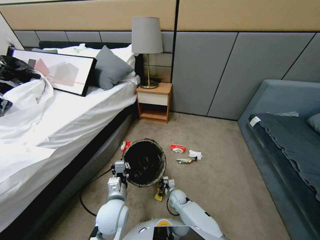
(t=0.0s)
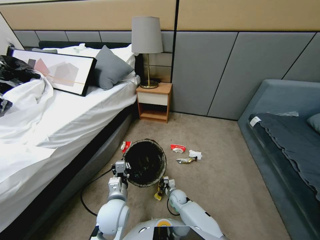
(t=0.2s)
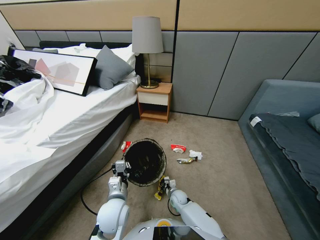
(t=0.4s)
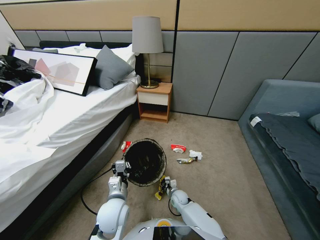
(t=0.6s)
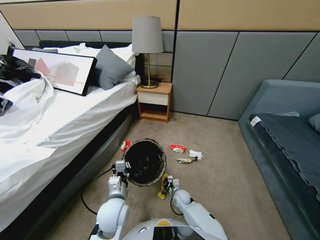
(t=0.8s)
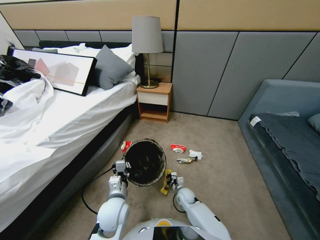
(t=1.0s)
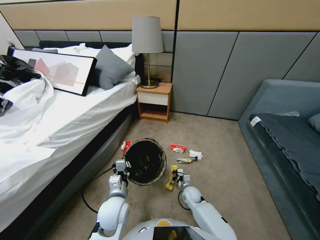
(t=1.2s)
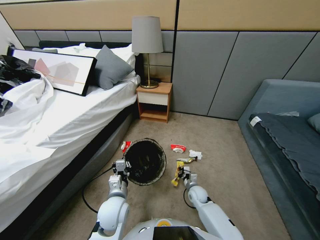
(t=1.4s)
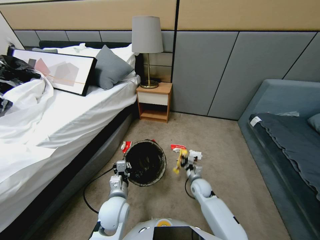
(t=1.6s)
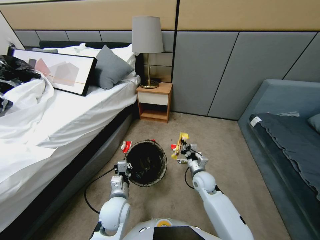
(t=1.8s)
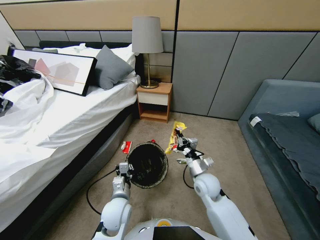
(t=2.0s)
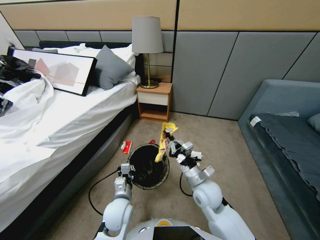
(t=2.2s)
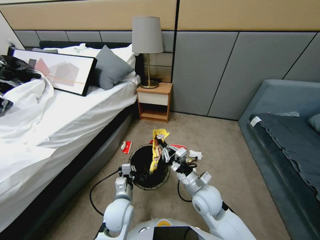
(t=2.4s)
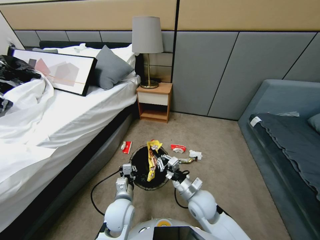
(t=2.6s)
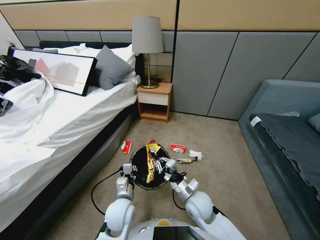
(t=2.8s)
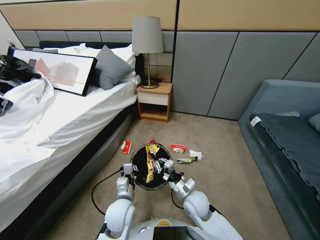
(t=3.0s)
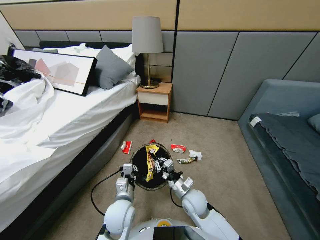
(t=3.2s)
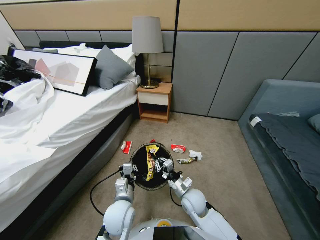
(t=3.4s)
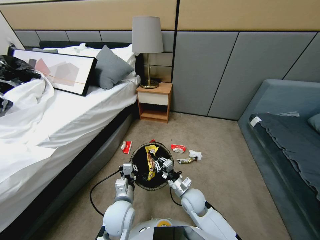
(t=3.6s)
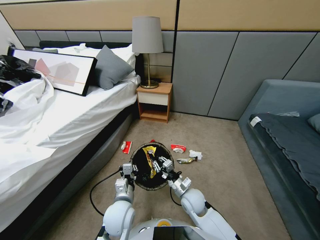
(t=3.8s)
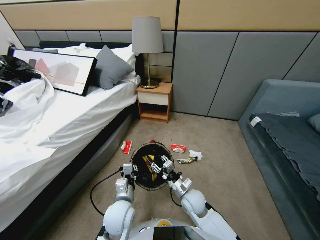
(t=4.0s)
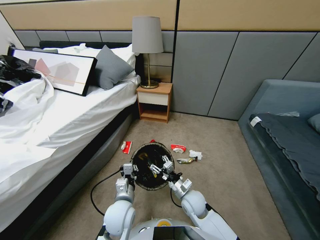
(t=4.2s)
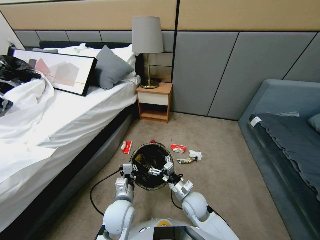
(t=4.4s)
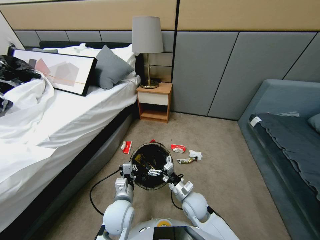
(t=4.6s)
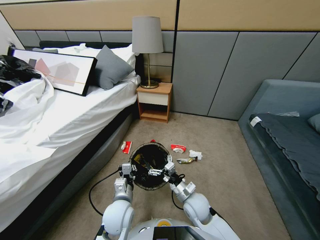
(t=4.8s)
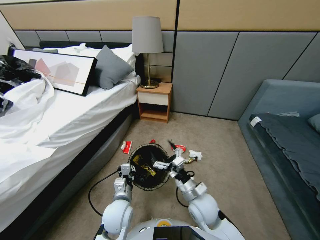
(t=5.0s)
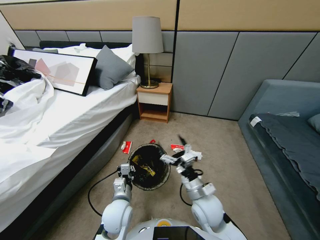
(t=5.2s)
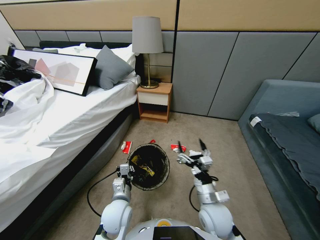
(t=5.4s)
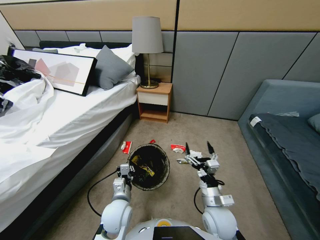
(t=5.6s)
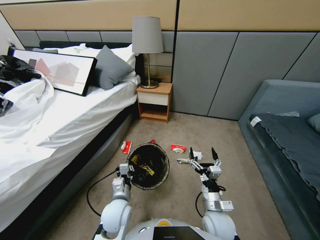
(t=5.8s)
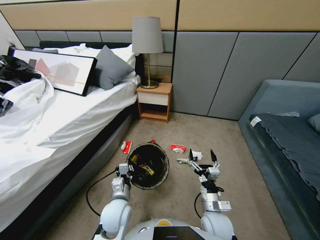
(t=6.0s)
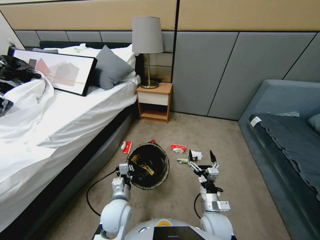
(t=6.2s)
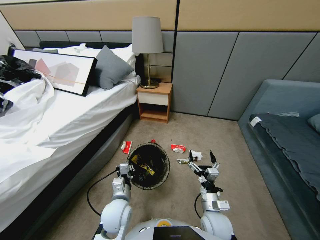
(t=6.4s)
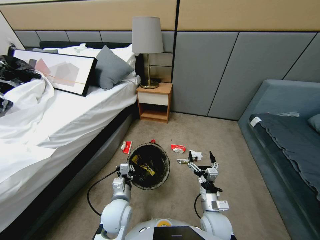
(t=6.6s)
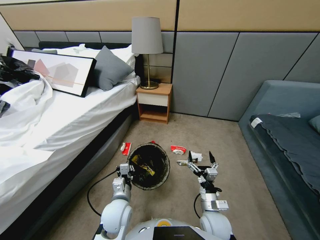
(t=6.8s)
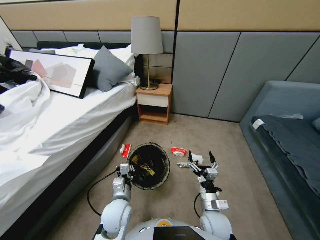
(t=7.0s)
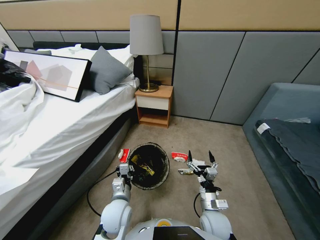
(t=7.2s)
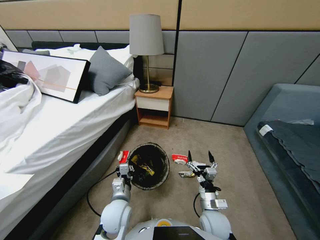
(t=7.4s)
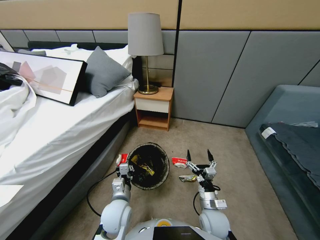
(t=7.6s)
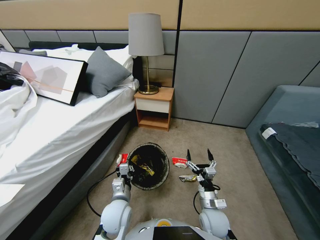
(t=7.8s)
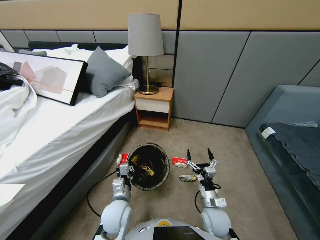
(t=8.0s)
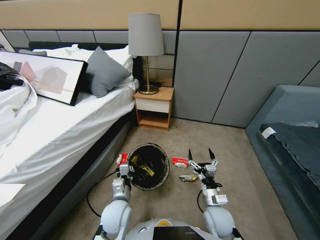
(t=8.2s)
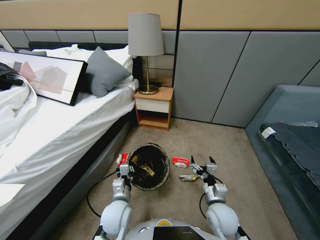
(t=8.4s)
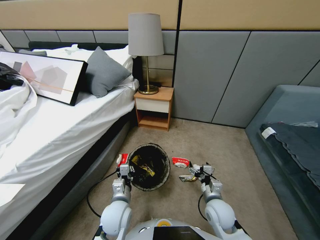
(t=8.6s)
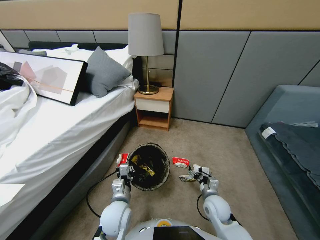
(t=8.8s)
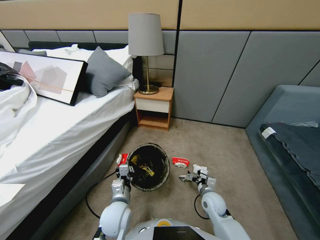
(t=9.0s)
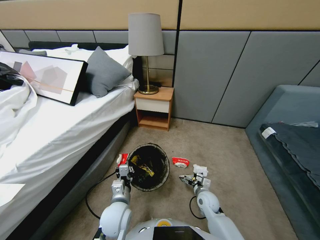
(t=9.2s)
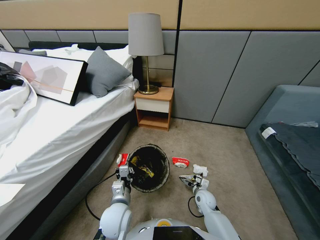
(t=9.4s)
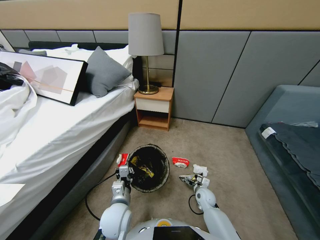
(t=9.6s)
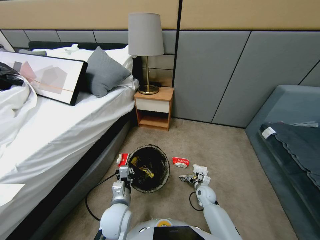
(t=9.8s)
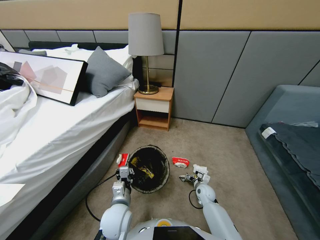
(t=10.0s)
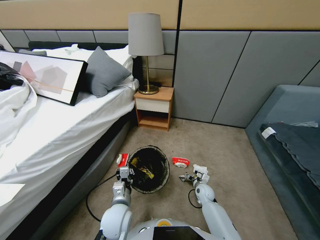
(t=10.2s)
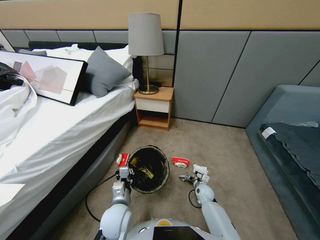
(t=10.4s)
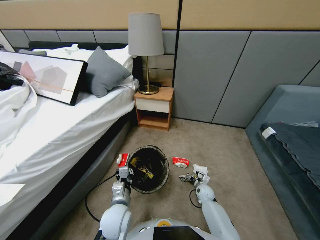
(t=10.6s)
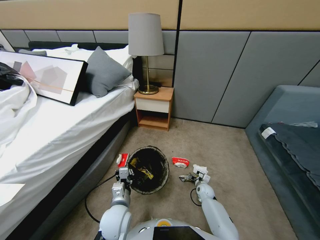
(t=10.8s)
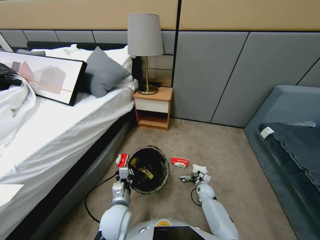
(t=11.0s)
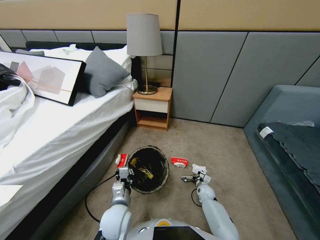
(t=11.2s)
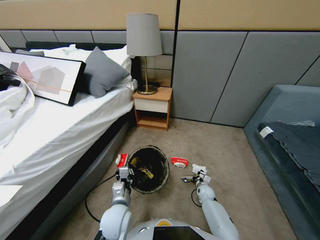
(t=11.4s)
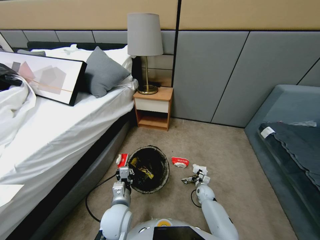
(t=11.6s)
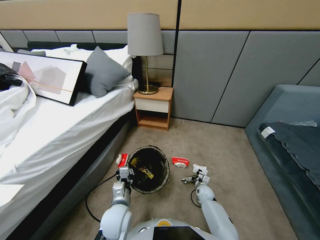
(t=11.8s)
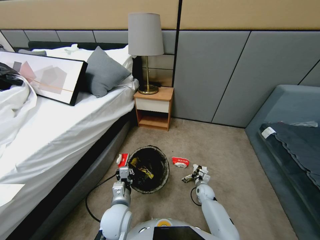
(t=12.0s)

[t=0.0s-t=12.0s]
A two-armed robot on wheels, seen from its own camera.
Task of the whole recording: Pick up the trash bin, then pick up the garbage from the floor and place it into the trash bin.
t=0.0s to t=1.6s: The right gripper goes approximately 20 cm upward and to the right.
t=1.6s to t=3.0s: The right gripper shifts some 10 cm backward and to the left.
t=3.0s to t=4.4s: The right gripper opens up.
t=4.4s to t=6.0s: The right gripper goes some 10 cm backward and to the right, and goes upward and returns, roughly 10 cm each way.
t=7.6s to t=9.0s: The right gripper is displaced forward and downward by approximately 10 cm.
t=9.0s to t=10.4s: The right gripper moves downward and forward, roughly 10 cm.

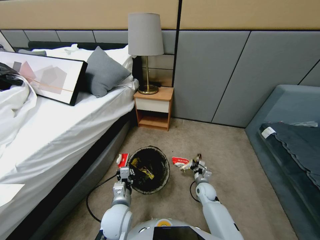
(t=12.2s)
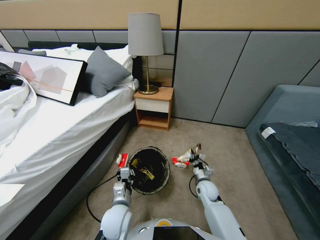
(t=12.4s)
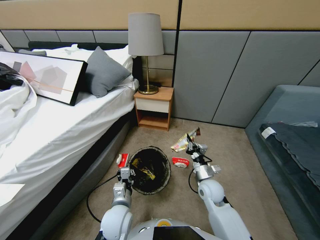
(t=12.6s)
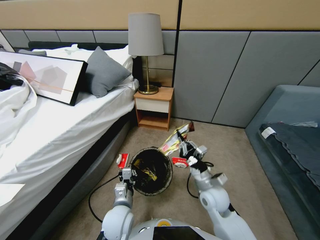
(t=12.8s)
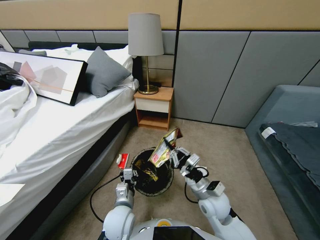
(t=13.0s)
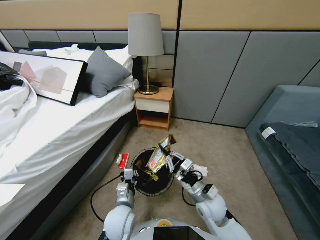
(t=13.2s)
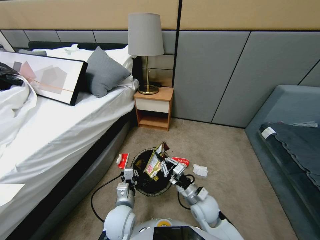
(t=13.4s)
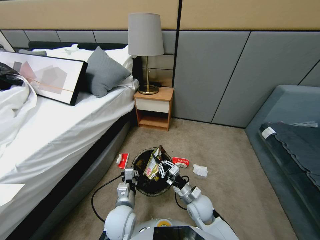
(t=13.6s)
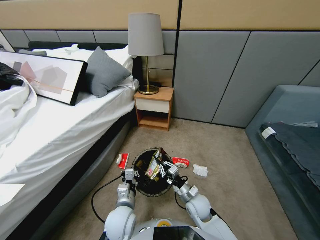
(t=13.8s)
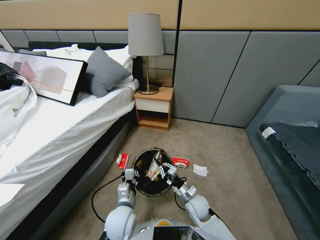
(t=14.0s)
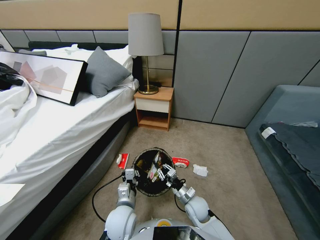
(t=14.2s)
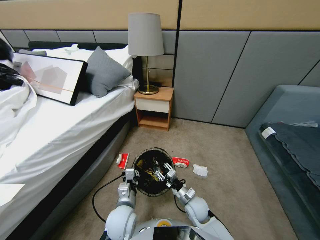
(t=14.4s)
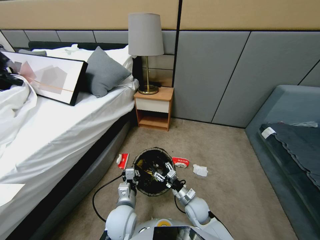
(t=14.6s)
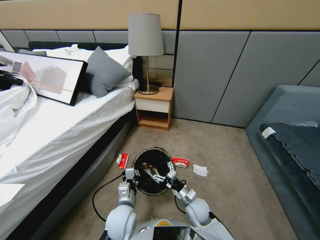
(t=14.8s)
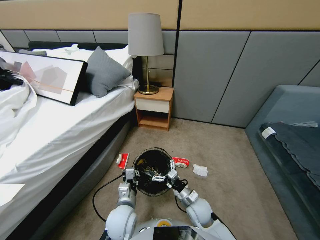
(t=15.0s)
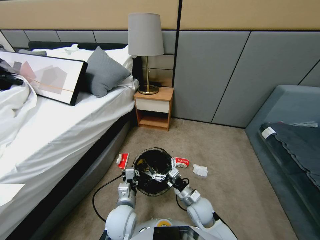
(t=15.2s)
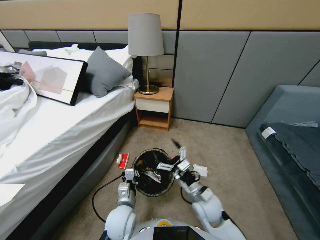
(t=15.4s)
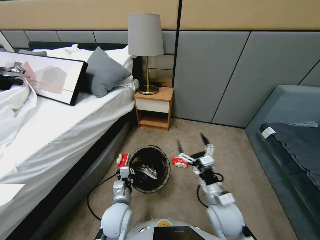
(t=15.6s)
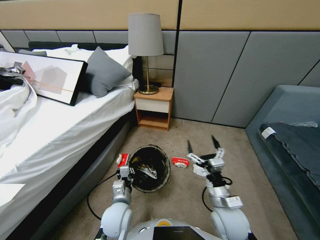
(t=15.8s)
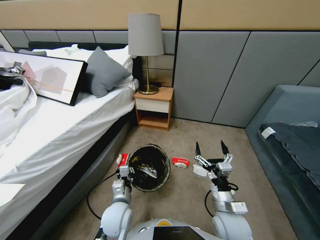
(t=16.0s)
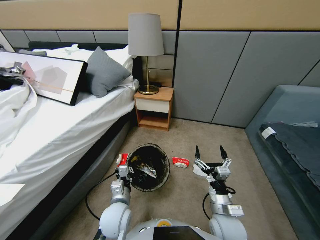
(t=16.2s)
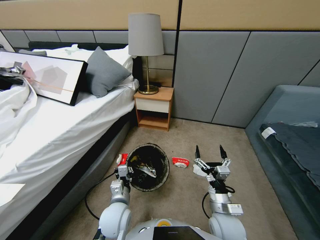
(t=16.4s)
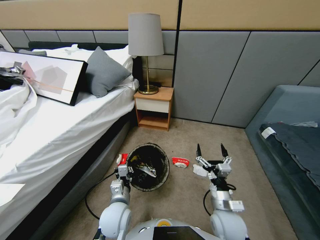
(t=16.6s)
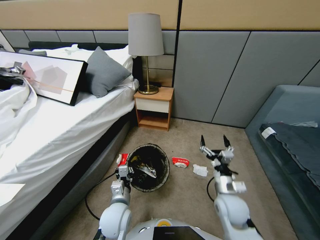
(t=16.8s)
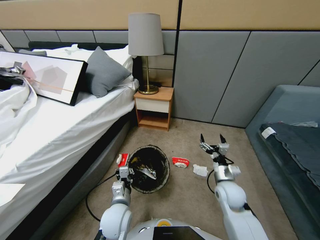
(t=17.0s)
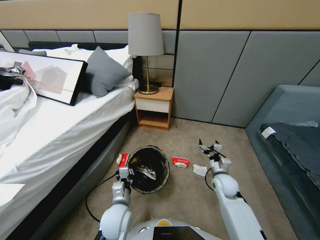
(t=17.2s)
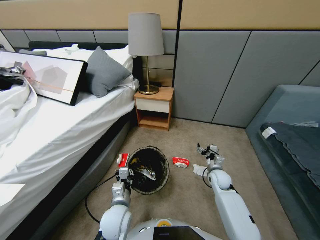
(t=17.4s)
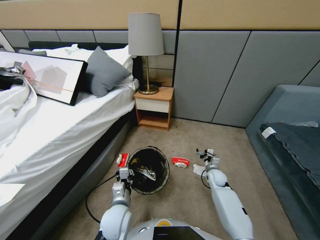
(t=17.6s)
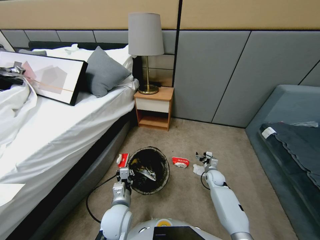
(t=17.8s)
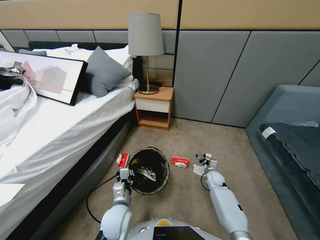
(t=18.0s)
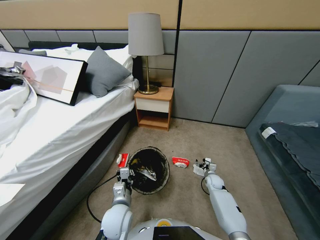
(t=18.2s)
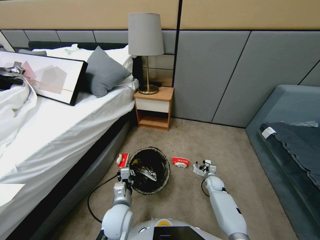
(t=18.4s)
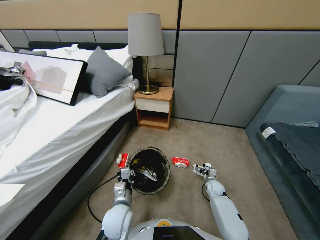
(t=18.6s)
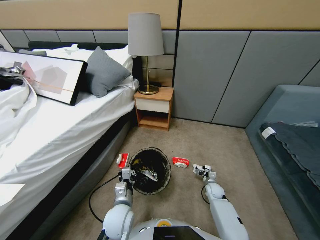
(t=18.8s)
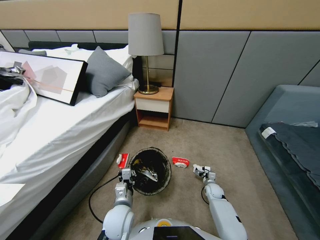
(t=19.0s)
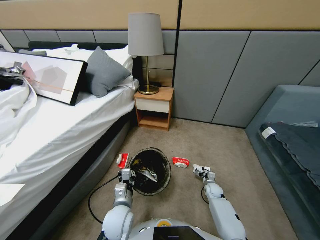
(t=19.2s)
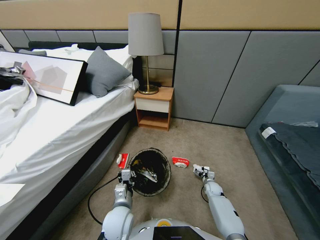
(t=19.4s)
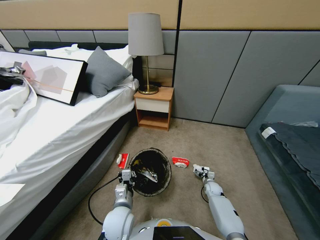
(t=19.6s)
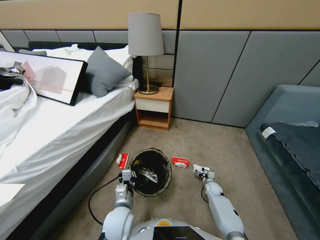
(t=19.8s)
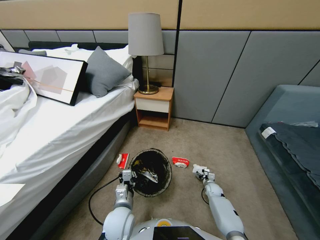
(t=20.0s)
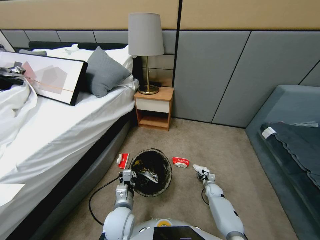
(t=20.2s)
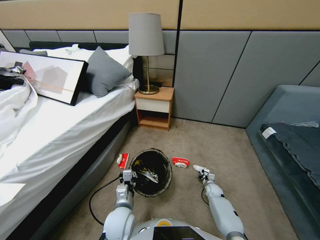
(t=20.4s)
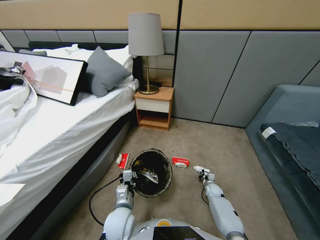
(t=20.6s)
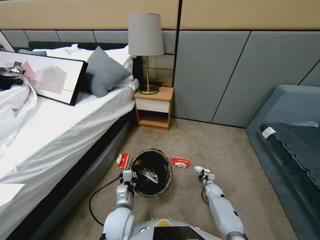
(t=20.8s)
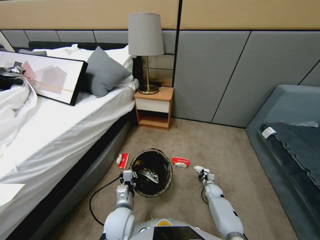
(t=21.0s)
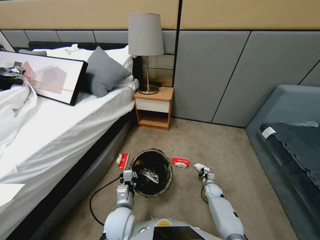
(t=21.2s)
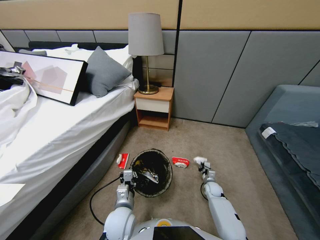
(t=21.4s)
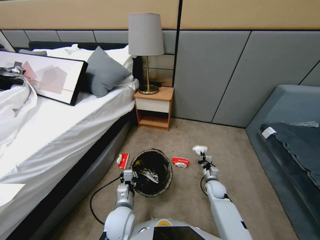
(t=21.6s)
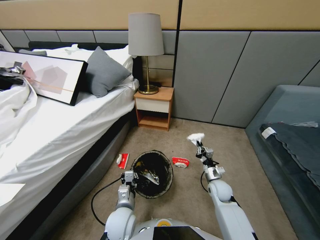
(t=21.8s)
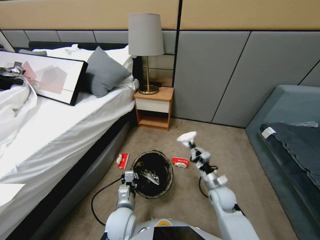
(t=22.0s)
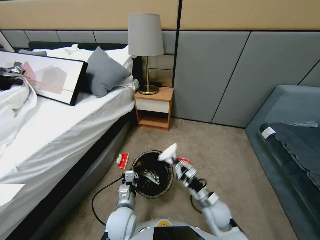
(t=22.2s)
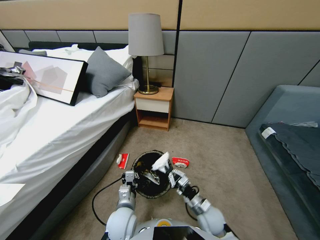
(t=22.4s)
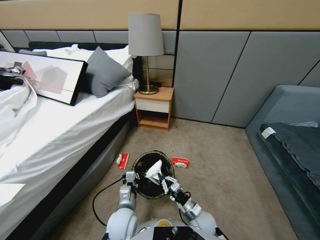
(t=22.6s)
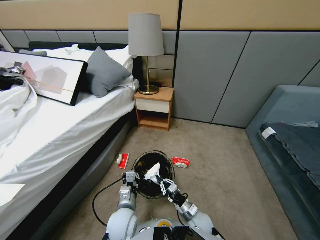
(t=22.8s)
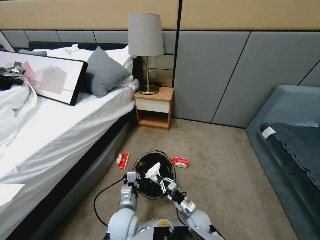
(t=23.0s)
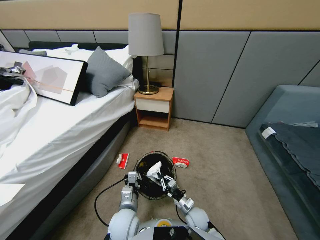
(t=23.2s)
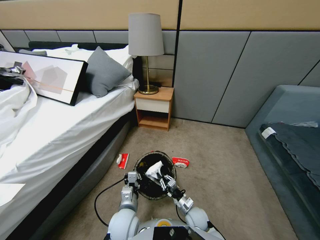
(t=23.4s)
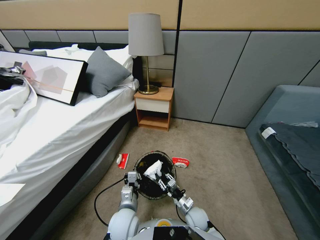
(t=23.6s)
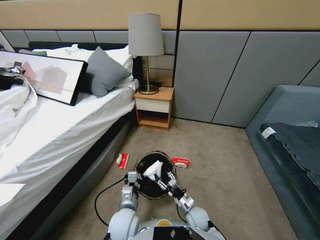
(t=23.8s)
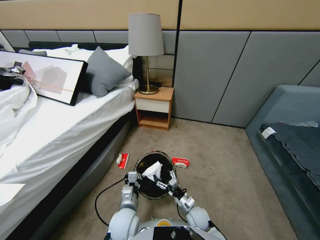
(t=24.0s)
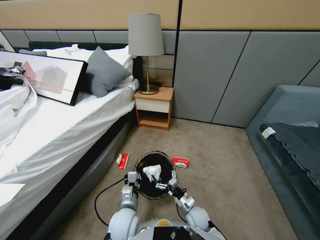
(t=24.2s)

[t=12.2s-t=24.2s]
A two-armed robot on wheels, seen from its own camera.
Task of the whole recording: Pick up the trash bin, then pick up the garbage from the floor and place it into the trash bin.
t=12.2s to t=13.8s: The right gripper heads to the left and backward, covering about 10 cm, and goes upward and returns, approximately 15 cm each way.
t=13.8s to t=15.2s: The right gripper shifts some 5 cm upward, and opens.
t=15.2s to t=16.6s: The right gripper shifts approximately 5 cm to the right.
t=16.6s to t=18.2s: The right gripper shifts some 30 cm downward, forward and to the right.
t=18.2s to t=19.8s: The right gripper heads downward, covering roughly 5 cm.
t=19.8s to t=21.2s: The right gripper closes.
t=21.2s to t=22.6s: The right gripper is displaced backward, to the left and upward by roughly 25 cm.
t=22.6s to t=24.2s: The right gripper opens up.
